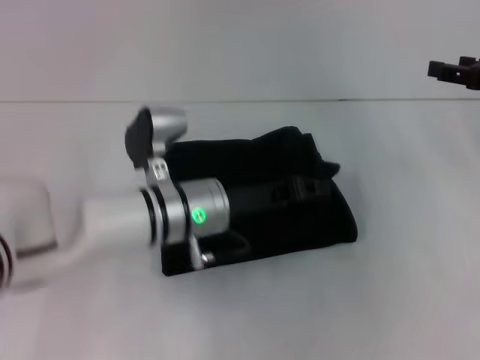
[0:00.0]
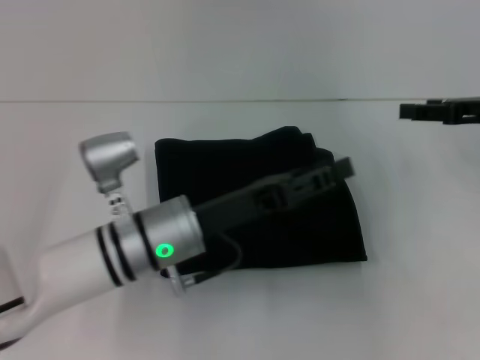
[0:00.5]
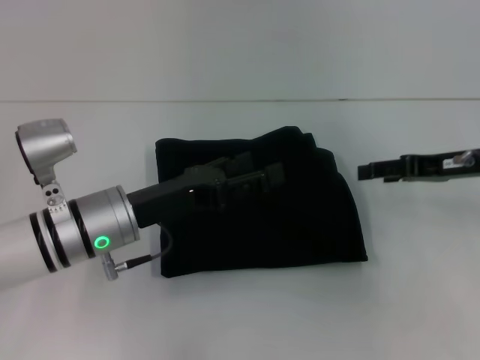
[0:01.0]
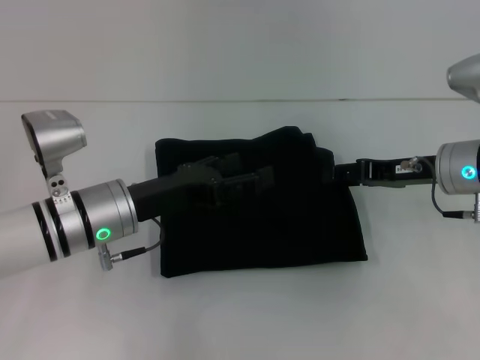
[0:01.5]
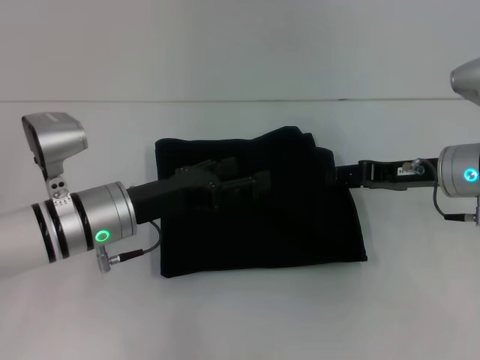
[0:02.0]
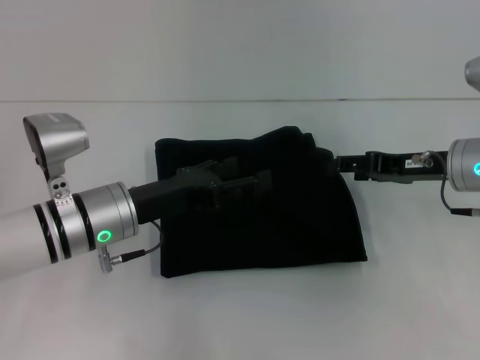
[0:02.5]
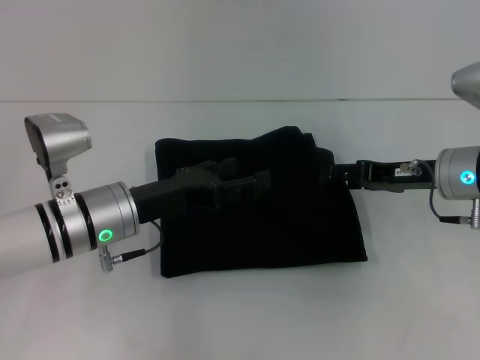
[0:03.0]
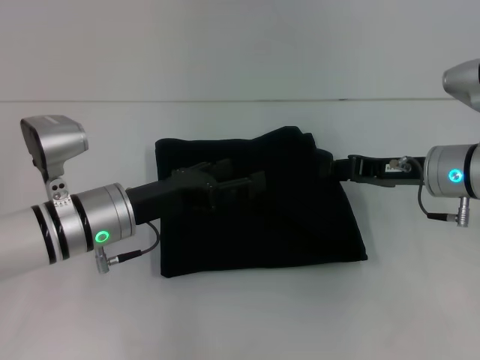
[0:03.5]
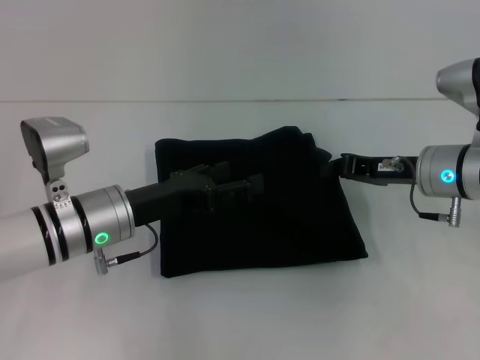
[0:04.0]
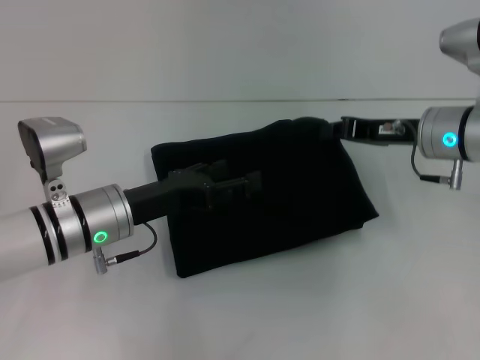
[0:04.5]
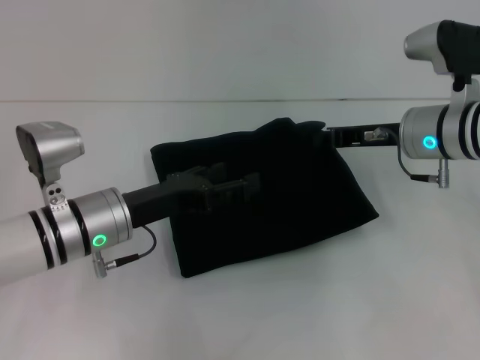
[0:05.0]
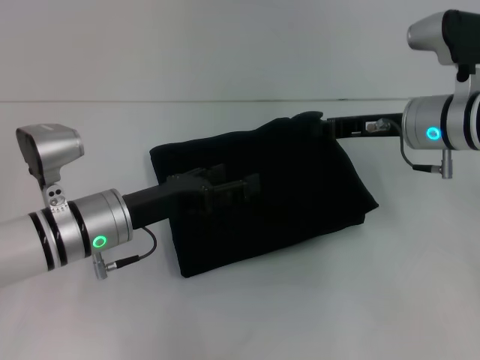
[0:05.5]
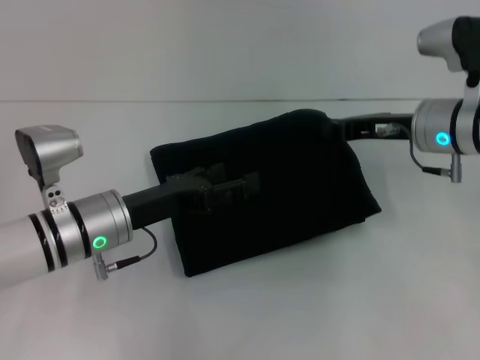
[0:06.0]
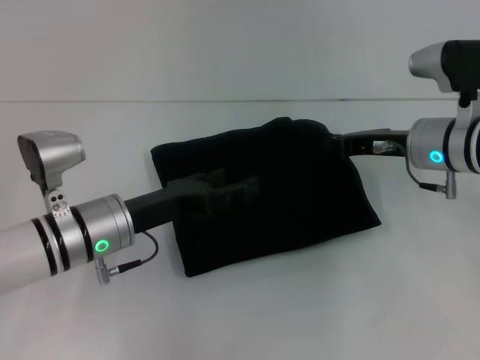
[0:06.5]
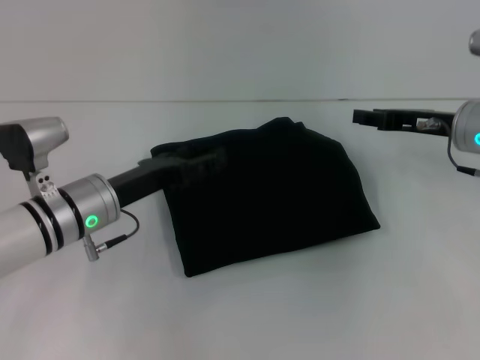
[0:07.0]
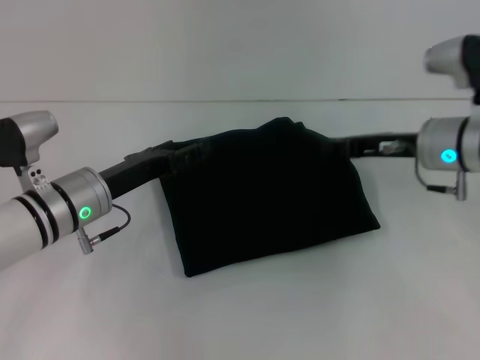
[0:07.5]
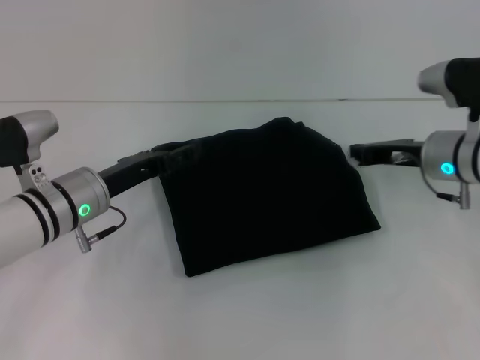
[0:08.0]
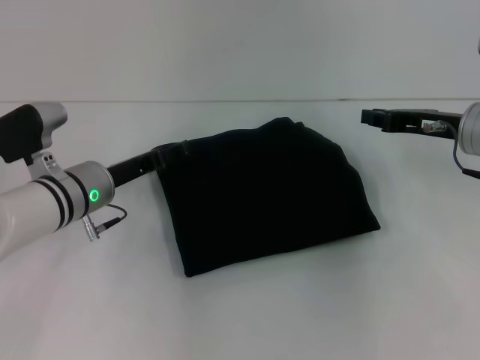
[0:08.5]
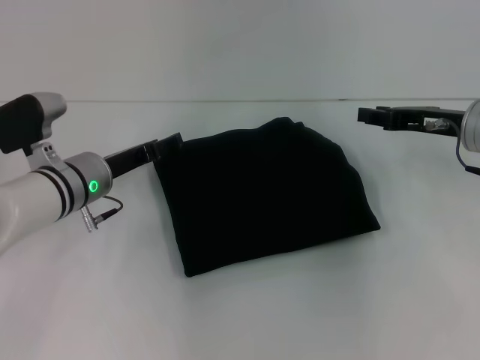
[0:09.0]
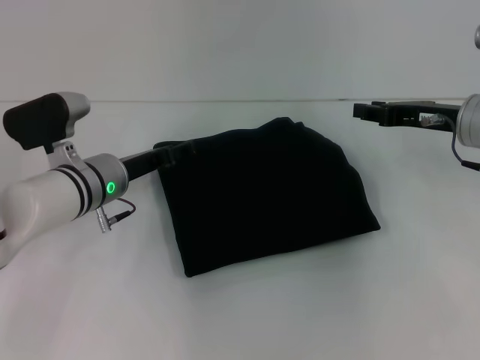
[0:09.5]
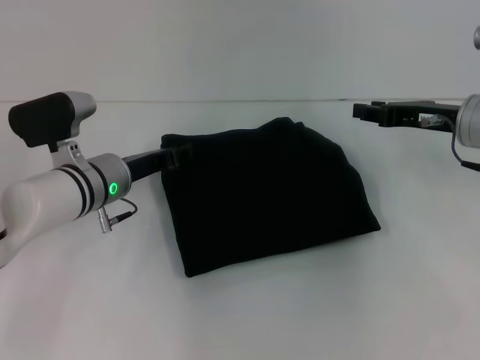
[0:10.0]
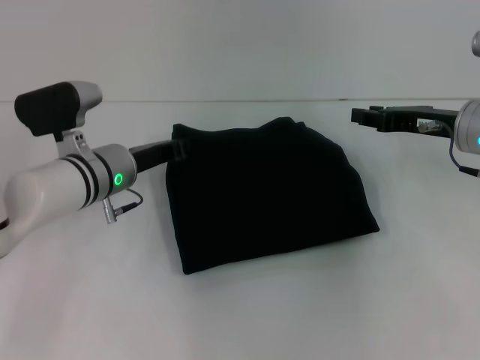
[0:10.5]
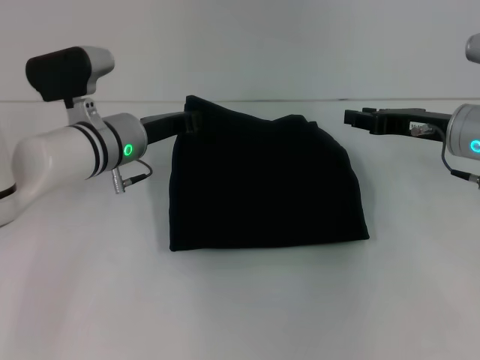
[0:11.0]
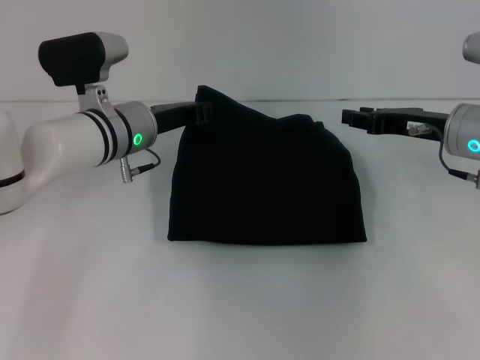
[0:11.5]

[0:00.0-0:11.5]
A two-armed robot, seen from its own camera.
0:00.0 to 0:02.0: The right gripper is displaced to the left and downward by approximately 10 cm. The left gripper heads to the left, covering roughly 10 cm, and opens its fingers.
0:02.0 to 0:04.0: The right gripper closes.
0:06.0 to 0:07.5: The right gripper opens.
0:07.5 to 0:09.5: The right gripper closes, then opens again.
0:09.5 to 0:11.5: The left gripper changes place by about 5 cm, and closes up.

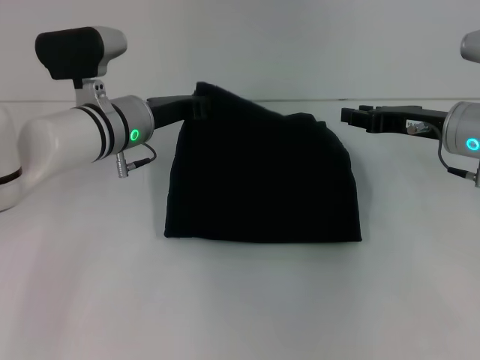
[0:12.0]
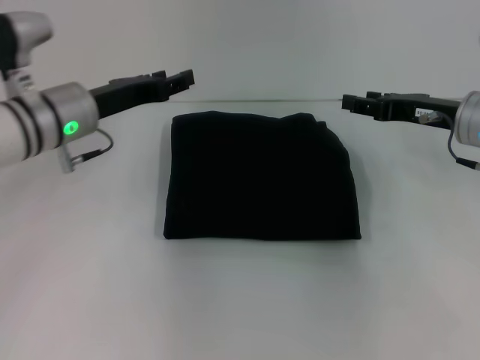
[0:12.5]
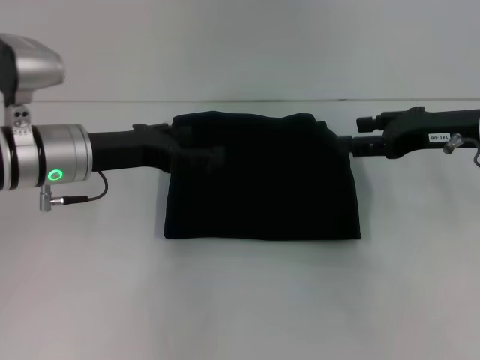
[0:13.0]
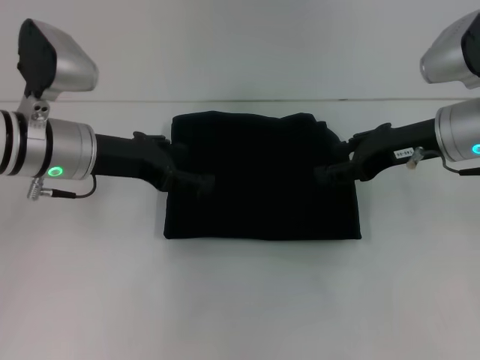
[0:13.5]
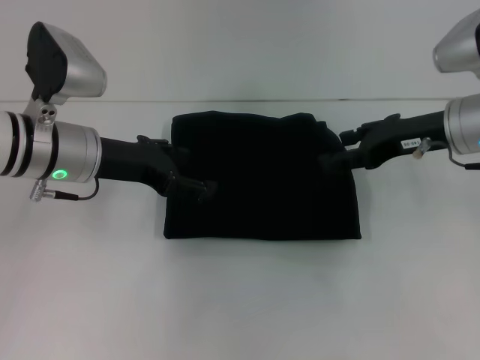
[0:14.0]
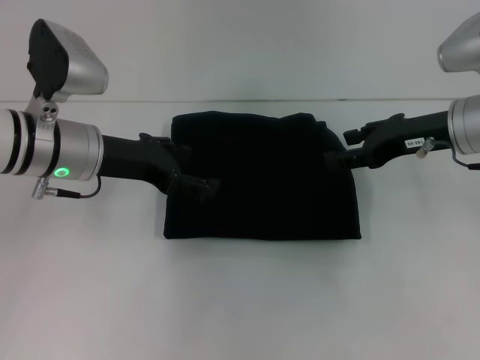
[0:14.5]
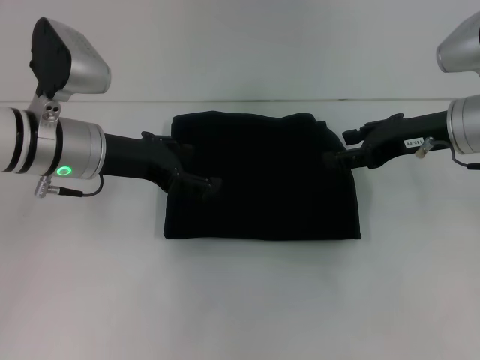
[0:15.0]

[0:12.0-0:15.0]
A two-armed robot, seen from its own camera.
0:12.0 to 0:13.5: The left gripper heads to the left, covering approximately 5 cm, and opens.
0:13.5 to 0:15.0: Both grippers stay put.
